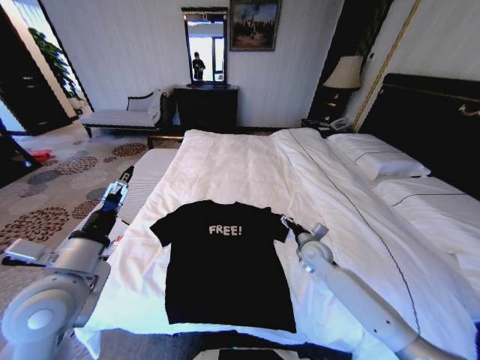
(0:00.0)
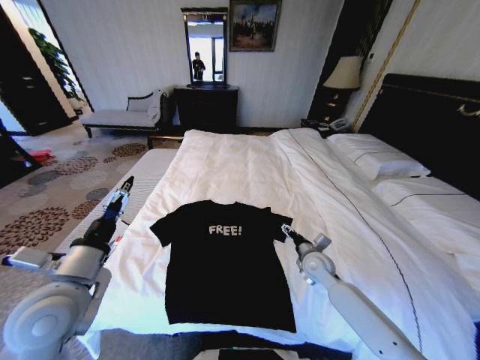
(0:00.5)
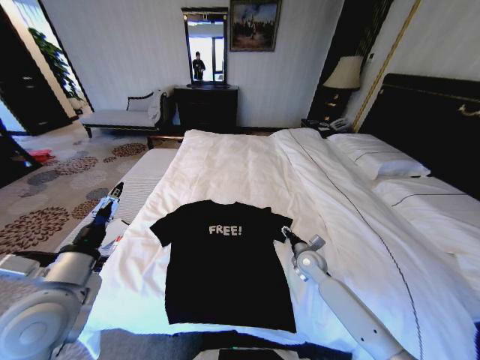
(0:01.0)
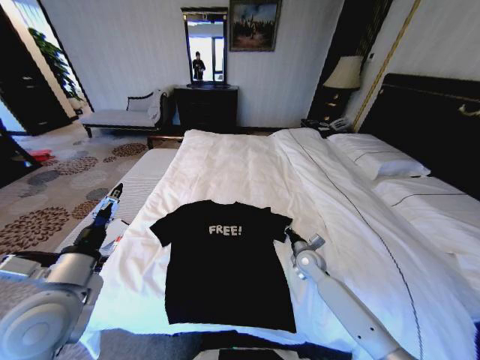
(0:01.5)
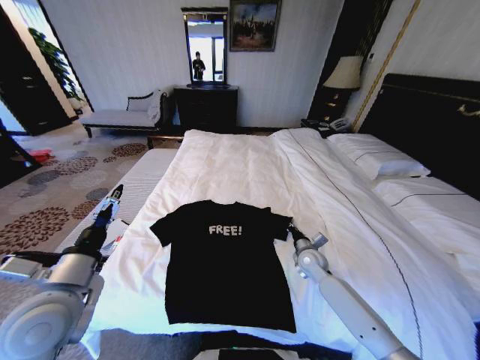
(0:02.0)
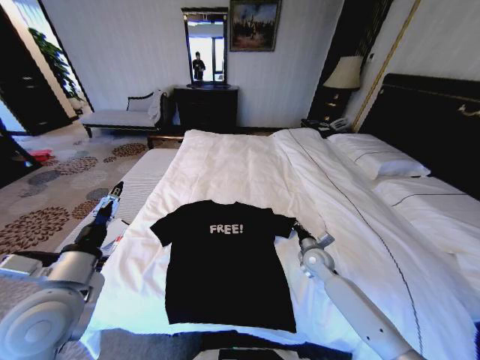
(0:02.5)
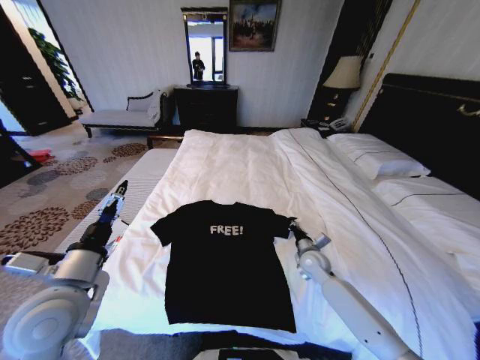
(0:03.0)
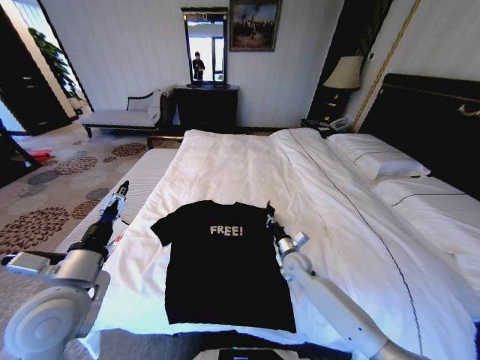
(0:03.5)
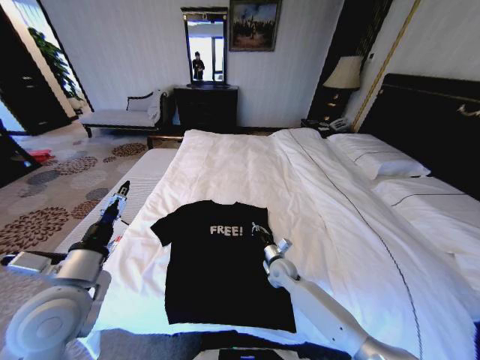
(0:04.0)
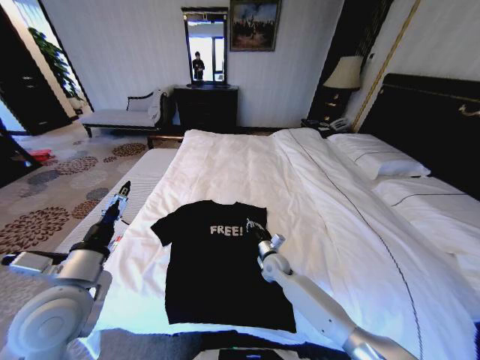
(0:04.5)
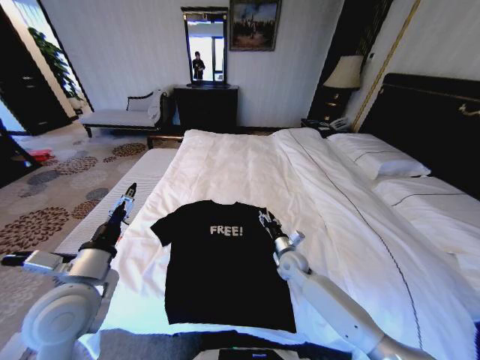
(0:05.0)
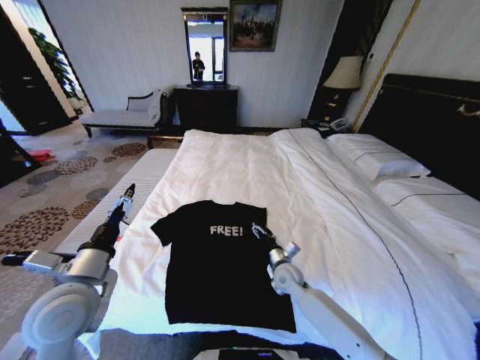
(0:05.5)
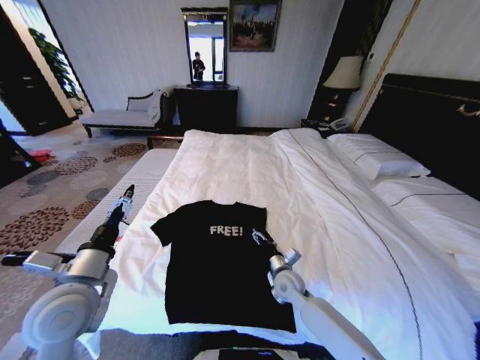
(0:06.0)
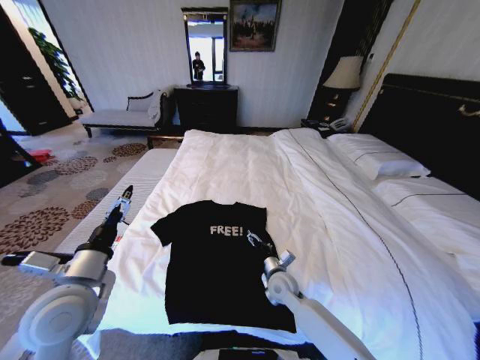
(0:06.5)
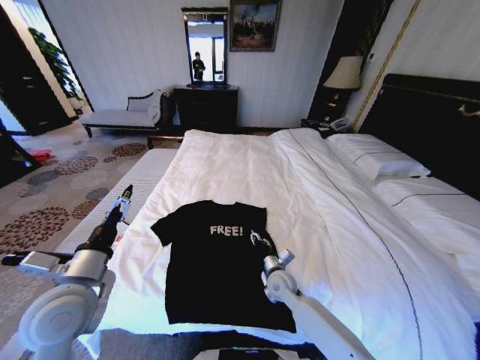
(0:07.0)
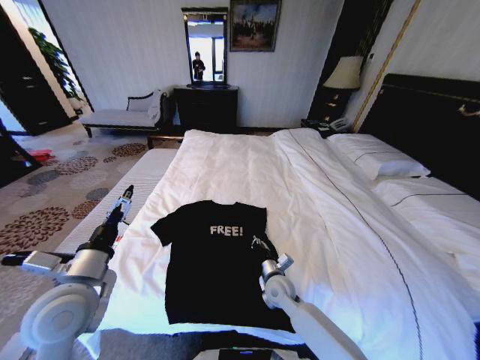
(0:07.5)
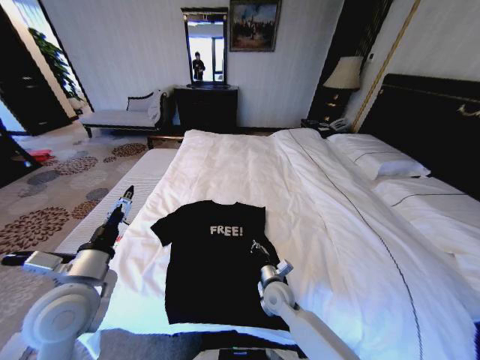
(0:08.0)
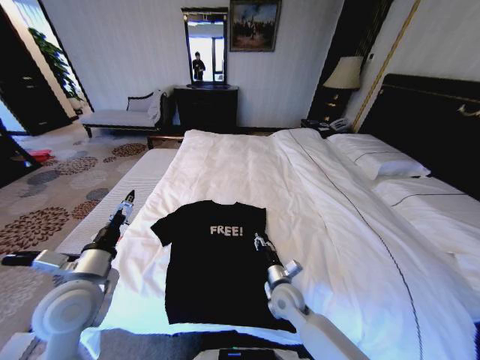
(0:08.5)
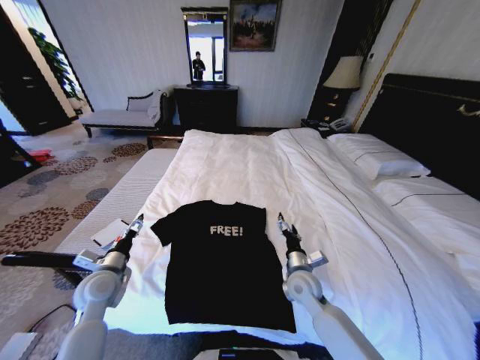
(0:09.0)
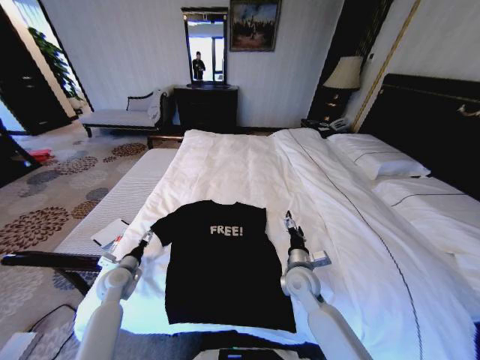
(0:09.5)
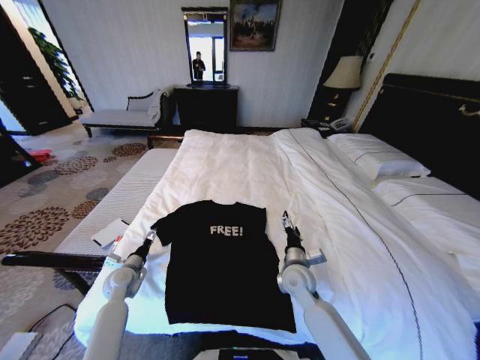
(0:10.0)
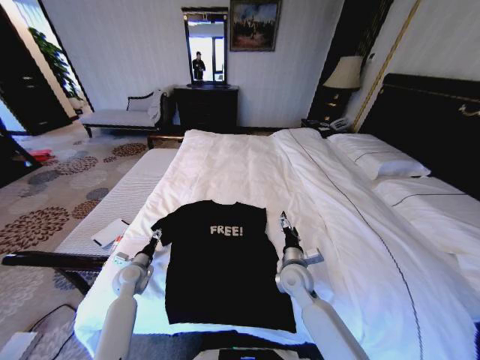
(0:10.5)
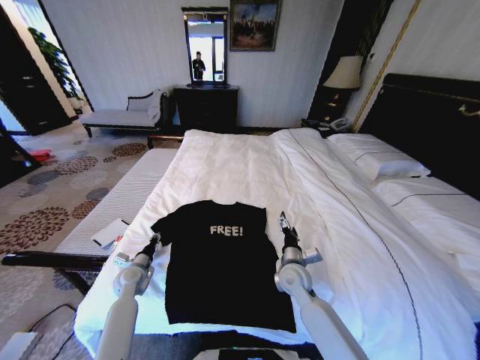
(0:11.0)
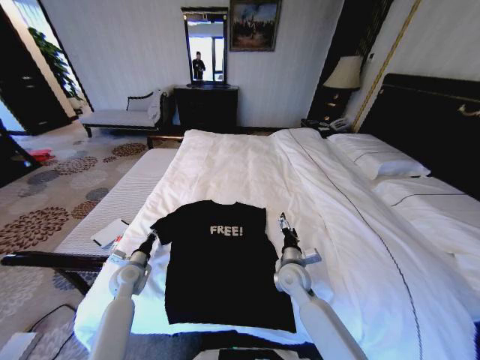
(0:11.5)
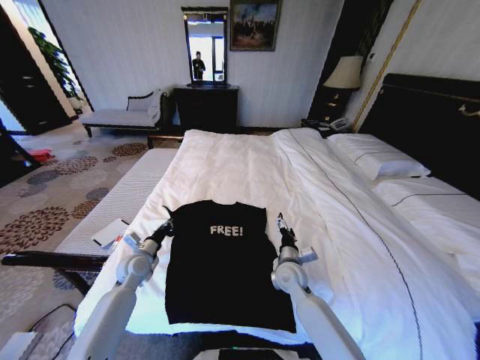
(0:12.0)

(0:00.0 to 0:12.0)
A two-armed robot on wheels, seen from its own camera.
Task of the whole recording: Fold the clothes on the bed.
0:00.0 - 0:02.0: The right gripper closes up.
0:02.0 - 0:04.0: The right gripper heads to the left, covering about 10 cm.
0:04.0 - 0:06.0: The right gripper goes about 5 cm backward, and opens its fingers.
0:06.0 - 0:08.0: The right gripper ends up roughly 5 cm from where it was, and closes up.
0:08.0 - 0:10.0: The left gripper shifts about 25 cm downward and forward. Meanwhile the right gripper shifts about 10 cm upward and to the right, and opens up.
0:10.0 - 0:12.0: The left gripper changes place by roughly 5 cm, and closes its fingers.

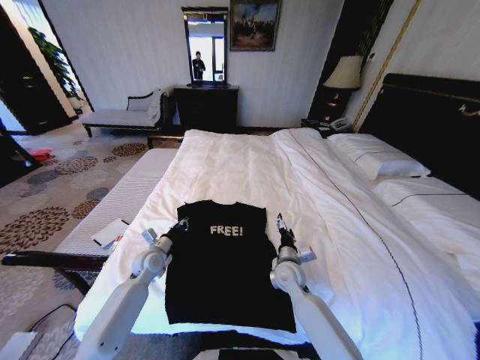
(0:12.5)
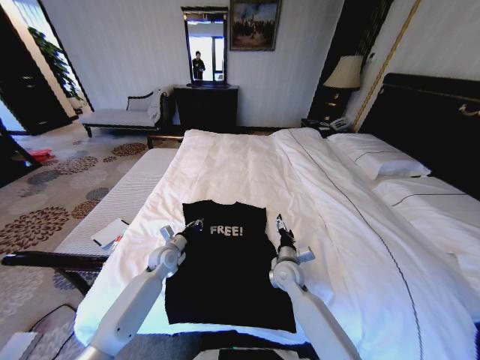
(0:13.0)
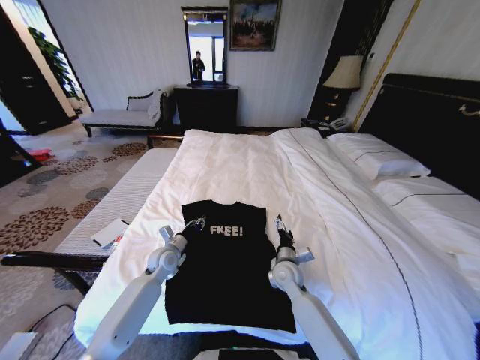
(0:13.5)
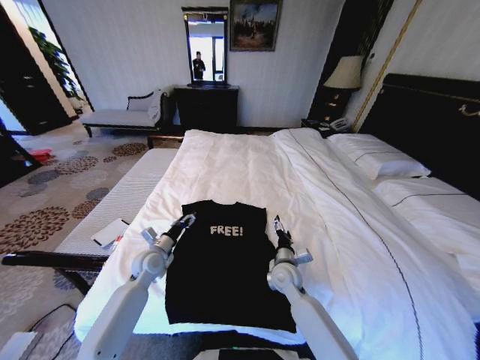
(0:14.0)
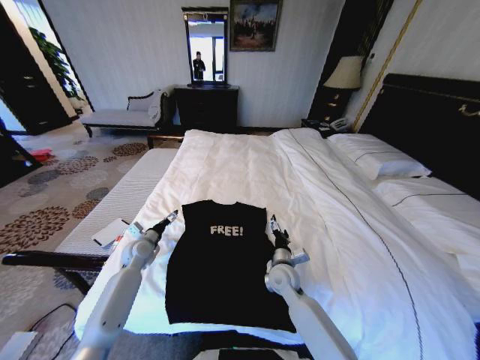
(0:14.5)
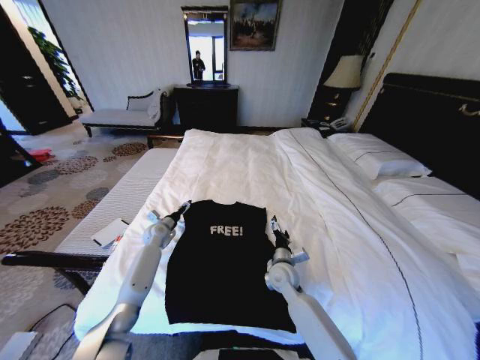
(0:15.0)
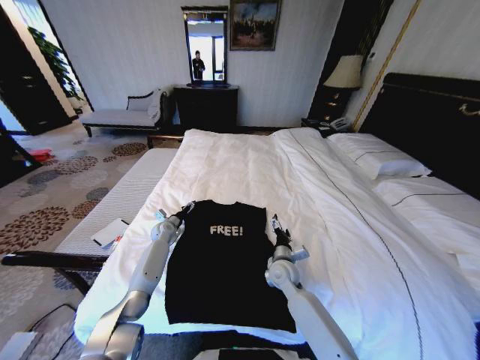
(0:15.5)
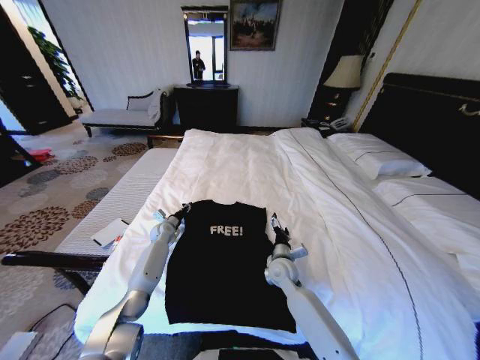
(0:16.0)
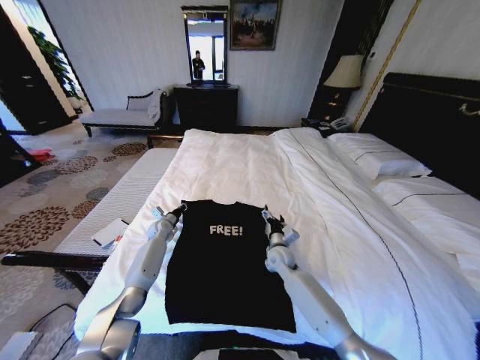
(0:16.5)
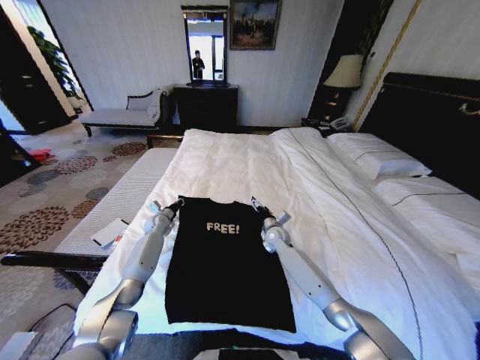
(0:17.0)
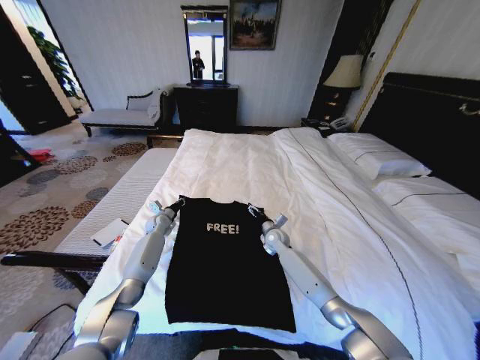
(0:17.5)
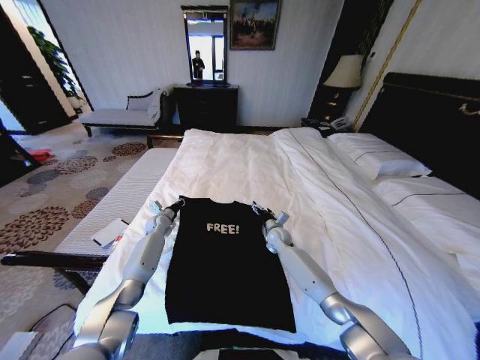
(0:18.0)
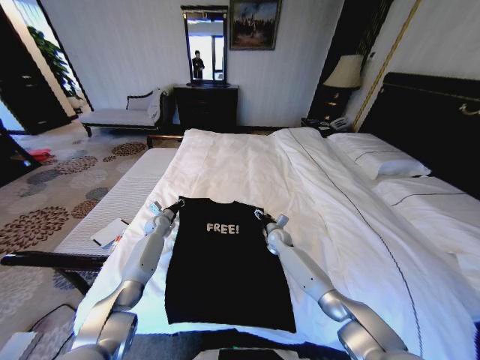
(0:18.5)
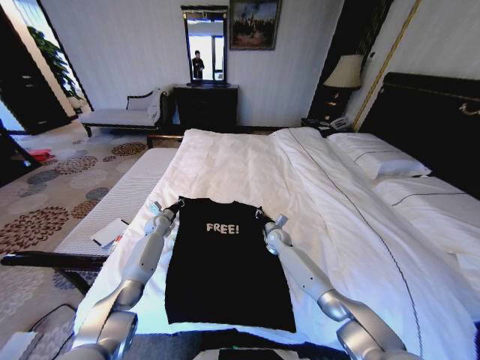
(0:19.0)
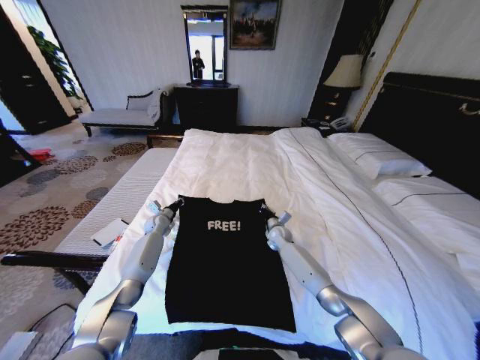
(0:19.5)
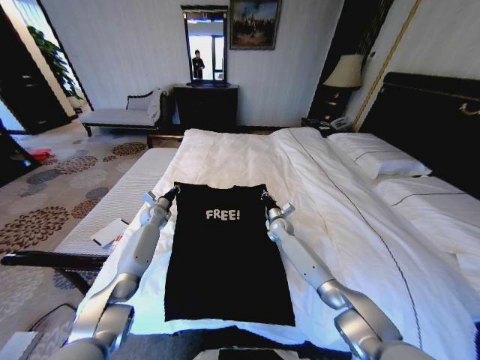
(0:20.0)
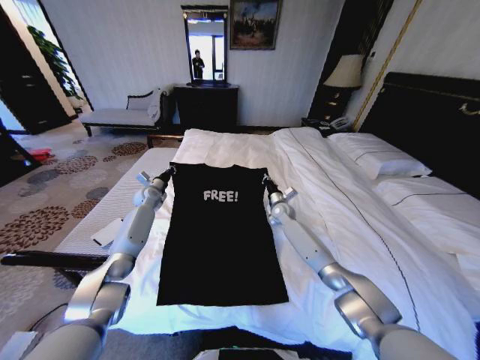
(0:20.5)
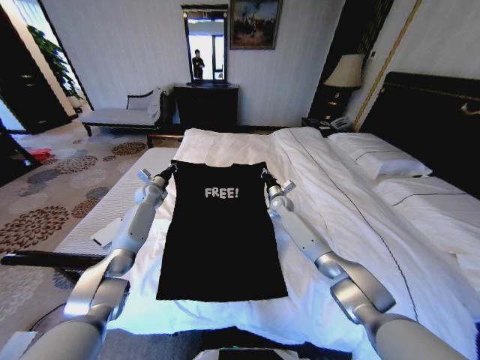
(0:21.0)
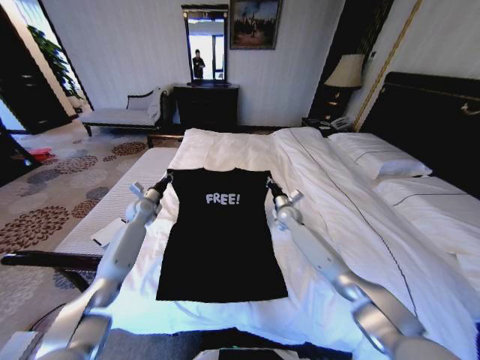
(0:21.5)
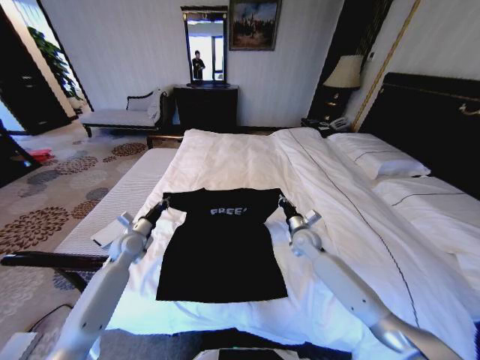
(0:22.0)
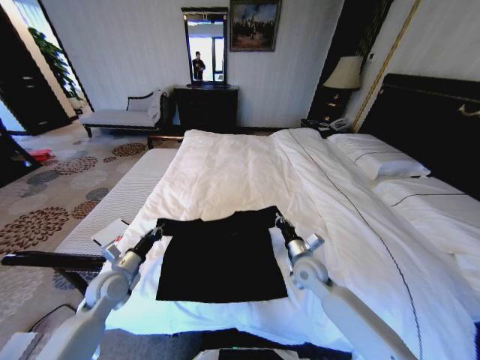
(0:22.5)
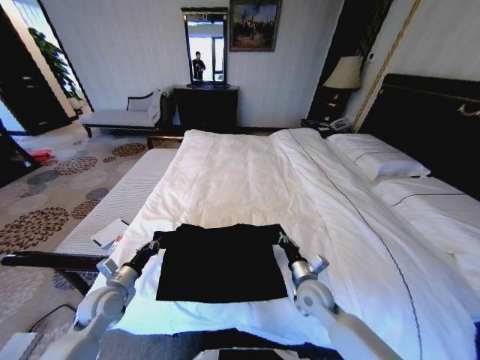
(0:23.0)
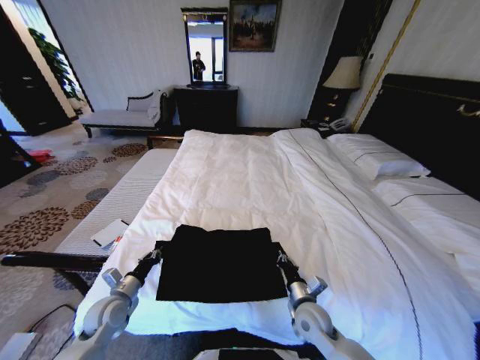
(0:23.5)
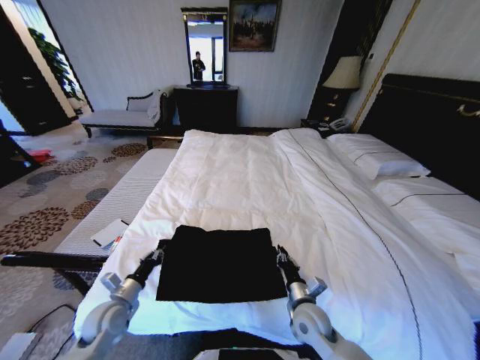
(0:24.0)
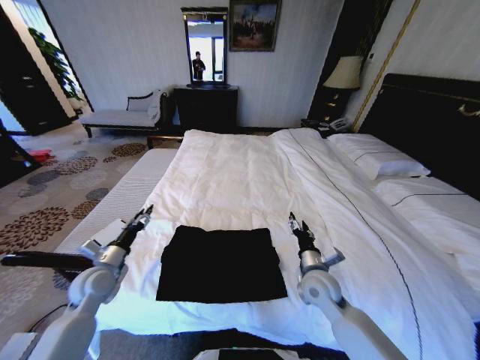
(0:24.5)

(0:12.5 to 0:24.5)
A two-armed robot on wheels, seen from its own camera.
Task of the whole recording: Fold the clothes on the bed.
0:12.5 - 0:14.5: The left gripper changes place by some 5 cm, and opens its fingers.
0:14.5 - 0:16.5: The right gripper goes approximately 10 cm forward. The left gripper shifts roughly 10 cm forward, and closes up.
0:16.5 - 0:18.5: The right gripper moves forward, about 10 cm.
0:18.5 - 0:20.5: Both grippers move upward and forward, some 10 cm. The right gripper closes up.
0:20.5 - 0:22.5: Both grippers travel together backward, roughly 30 cm.
0:22.5 - 0:24.5: The left gripper travels downward and back again, about 5 cm each way, and opens its fingers; the right gripper moves backward, some 5 cm, and opens up.

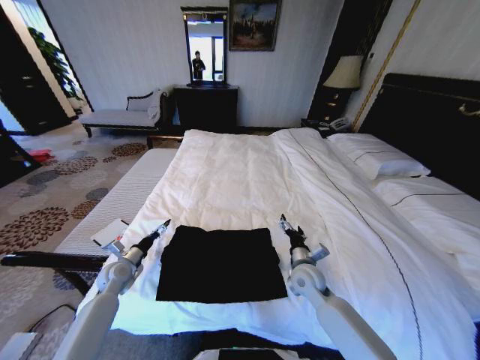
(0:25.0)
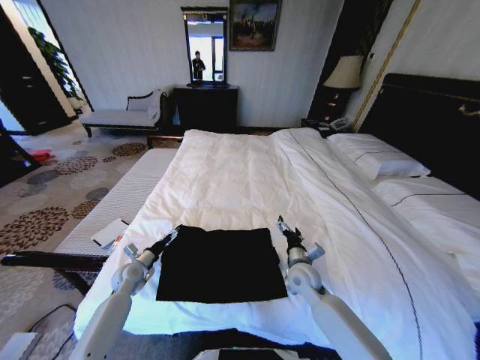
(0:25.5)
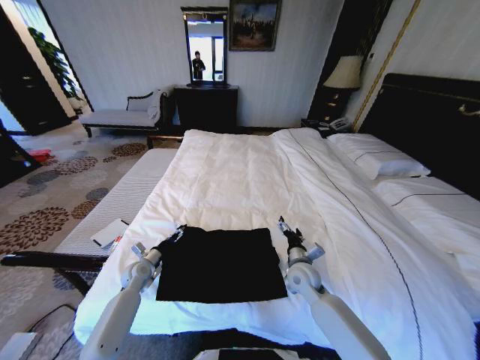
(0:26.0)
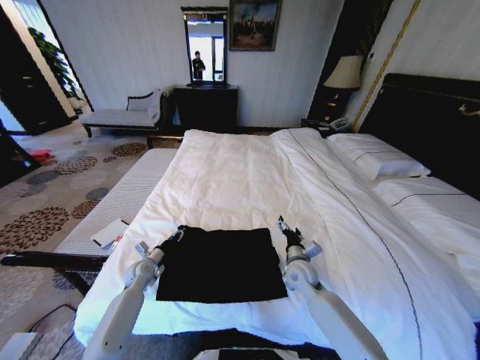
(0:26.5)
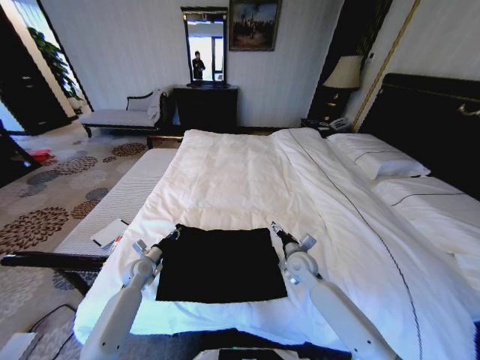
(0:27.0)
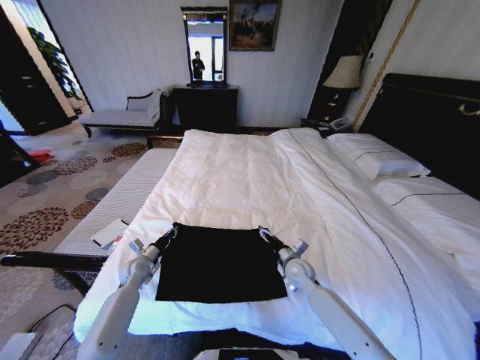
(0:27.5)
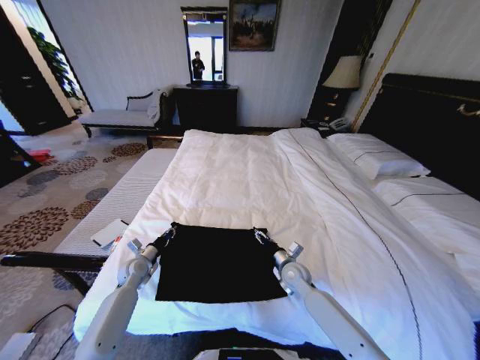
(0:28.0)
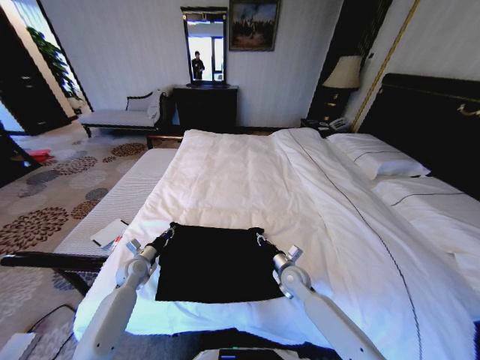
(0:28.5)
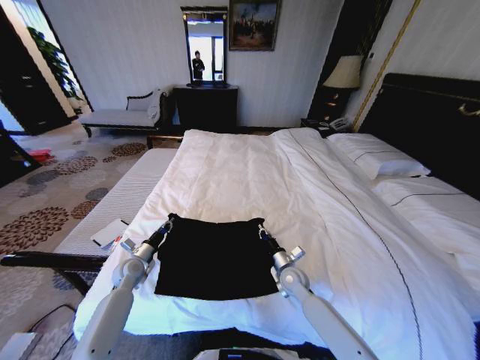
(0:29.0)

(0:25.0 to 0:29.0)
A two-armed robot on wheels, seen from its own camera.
Task of the whole recording: Fold the clothes on the bed.
0:25.0 - 0:27.0: The left gripper moves some 5 cm, and closes.
0:27.0 - 0:29.0: The right gripper heads downward, covering about 5 cm, and closes its fingers.
